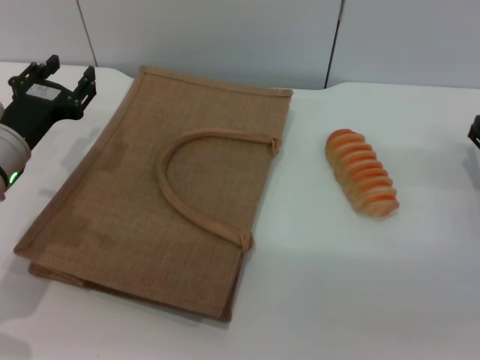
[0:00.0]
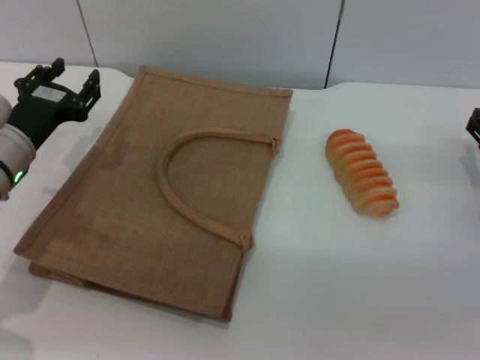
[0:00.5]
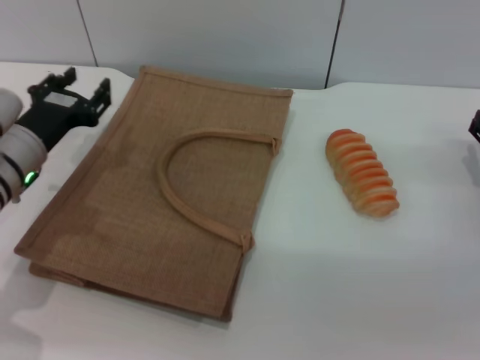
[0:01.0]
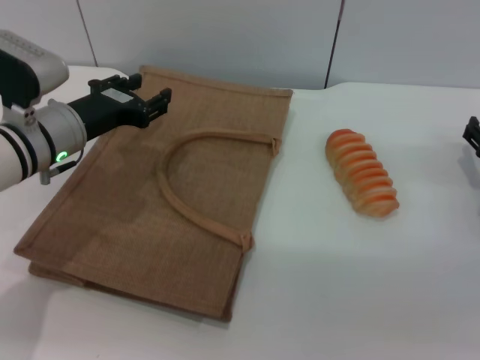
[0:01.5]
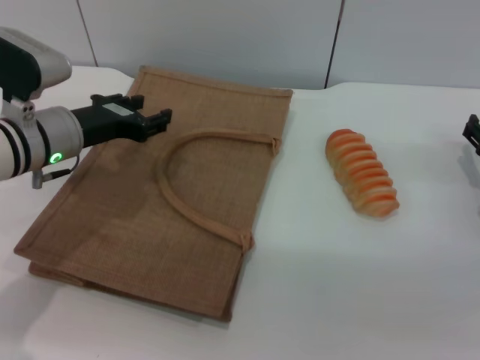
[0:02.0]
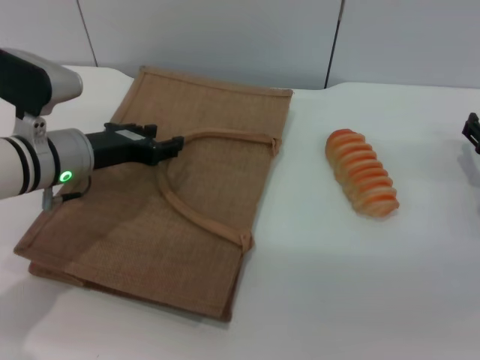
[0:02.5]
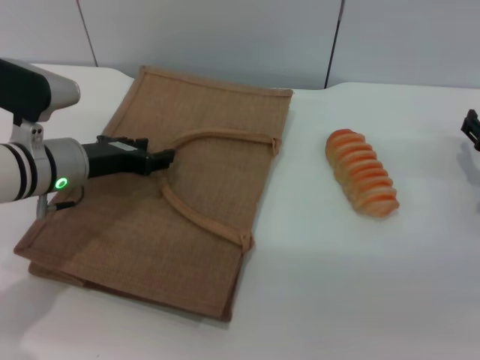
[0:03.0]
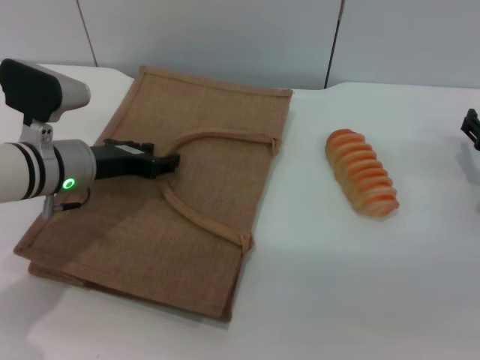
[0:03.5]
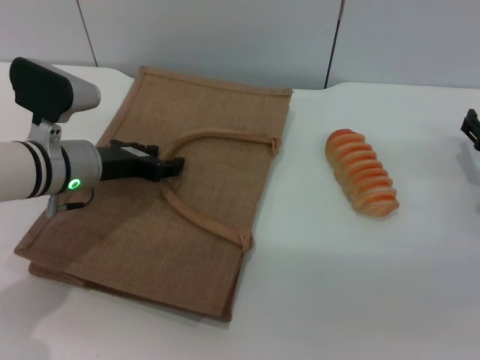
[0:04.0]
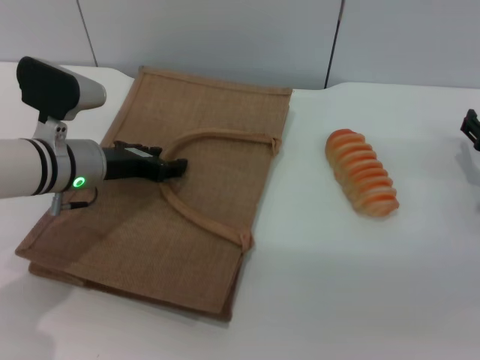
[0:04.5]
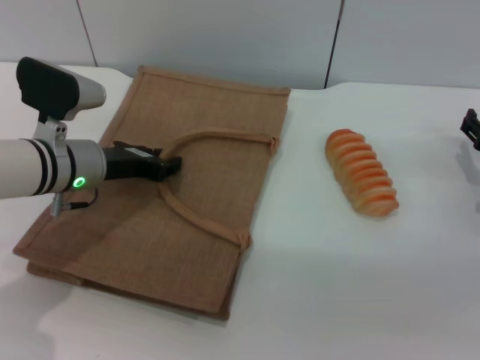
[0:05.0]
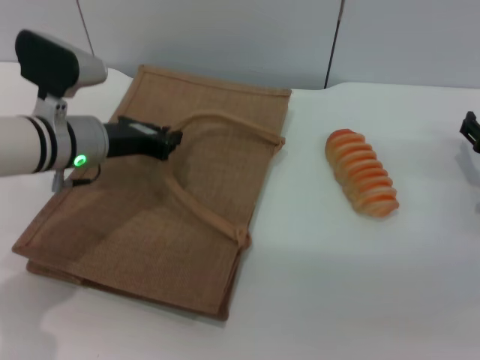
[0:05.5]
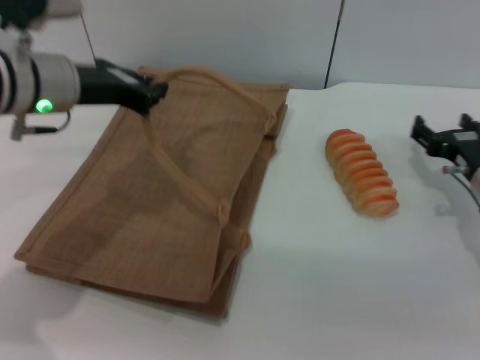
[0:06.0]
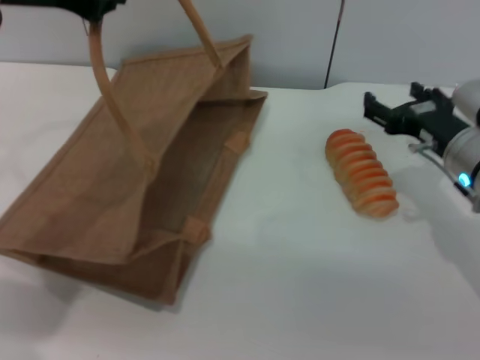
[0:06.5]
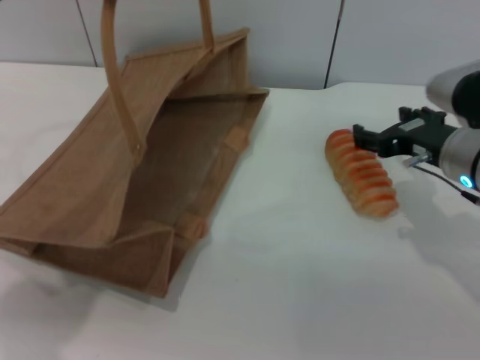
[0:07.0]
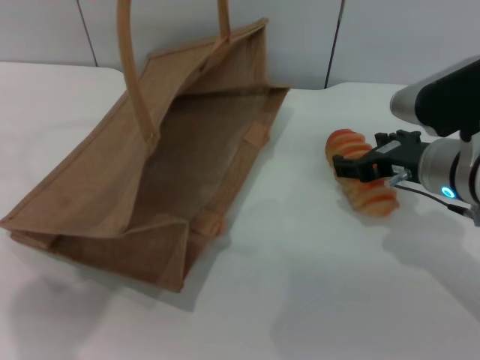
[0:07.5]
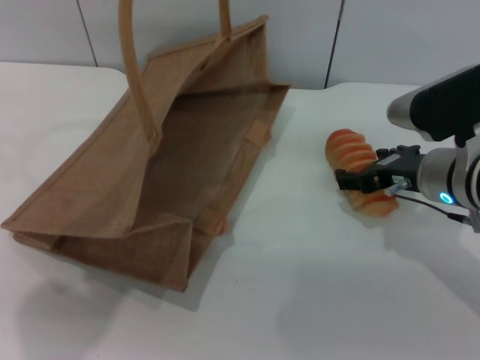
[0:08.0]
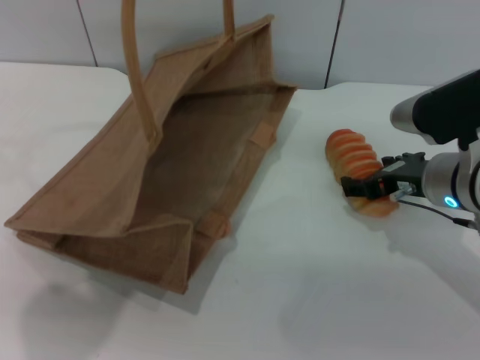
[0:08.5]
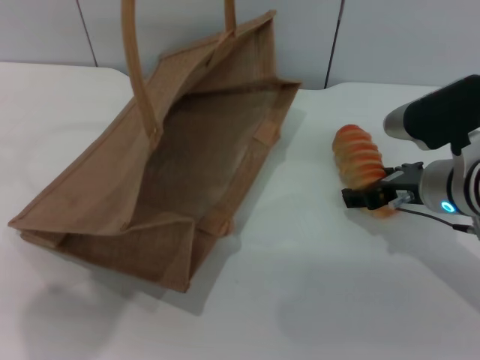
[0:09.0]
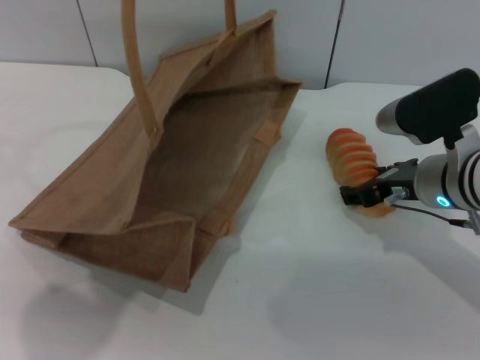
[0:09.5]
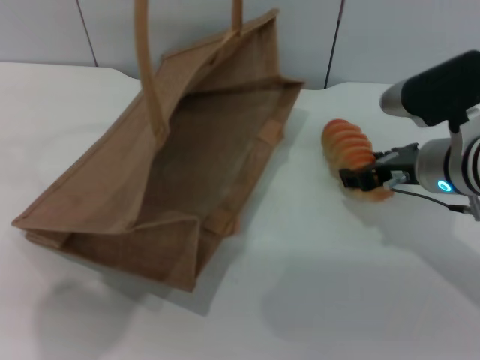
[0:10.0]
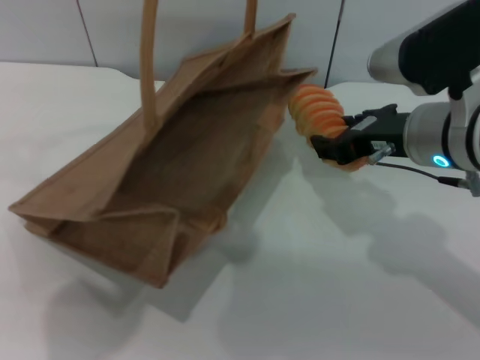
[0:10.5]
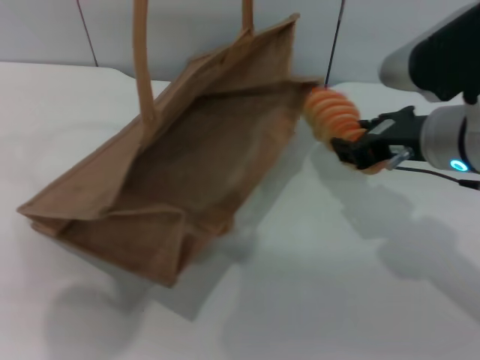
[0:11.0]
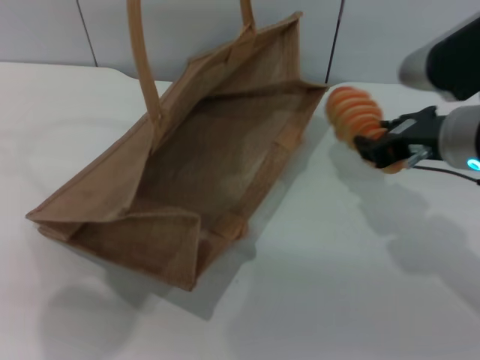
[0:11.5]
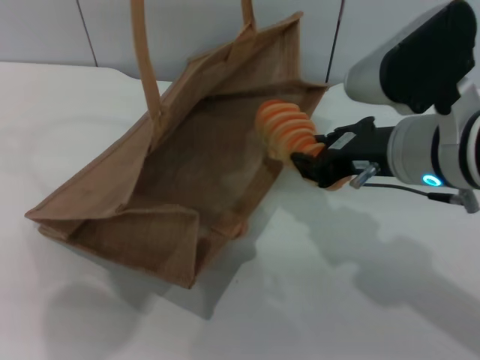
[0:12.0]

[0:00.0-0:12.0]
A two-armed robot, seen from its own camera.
Task of the whole recording: pick up the bread from the table and place it in the brown handbag.
Step, 0:00.0 to 0:05.5: Lift the woven bag with the left gripper to open it.
Step, 0:06.0 to 0:10.0: Pick up the bread with the right gripper.
0:00.0 to 0:02.0: The left gripper moves roughly 5 cm.
0:02.0 to 0:04.0: The grippers make only small movements.
0:04.0 to 0:06.0: The left gripper moves upward, some 10 cm, and closes up.
0:06.0 to 0:08.0: The left gripper shifts about 15 cm upward; the right gripper shifts approximately 10 cm to the left and upward.
0:08.0 to 0:10.0: There are only small adjustments of the grippers.
0:10.0 to 0:12.0: The right gripper goes approximately 10 cm upward and backward, and closes.

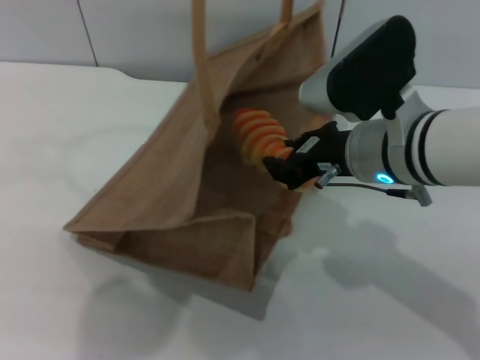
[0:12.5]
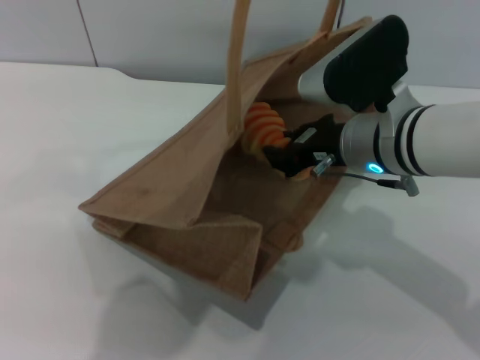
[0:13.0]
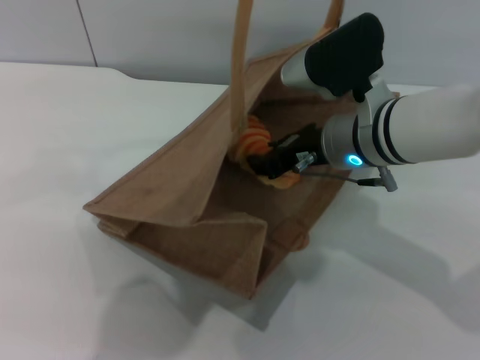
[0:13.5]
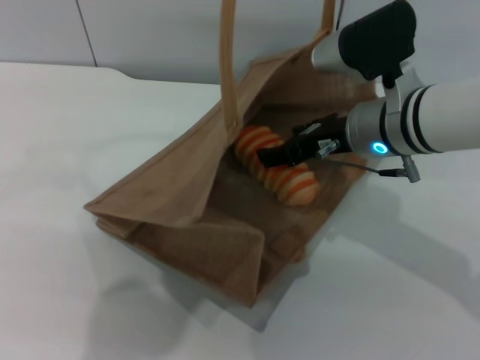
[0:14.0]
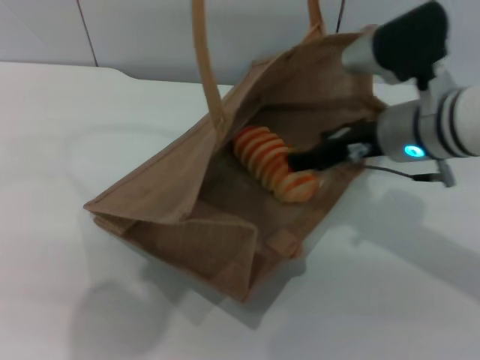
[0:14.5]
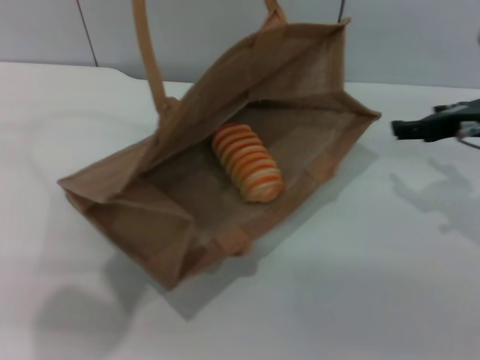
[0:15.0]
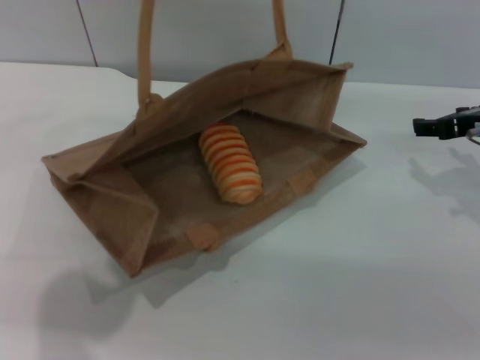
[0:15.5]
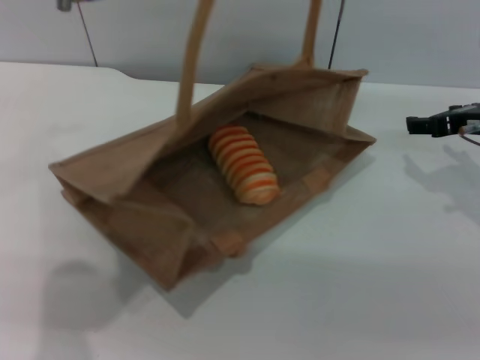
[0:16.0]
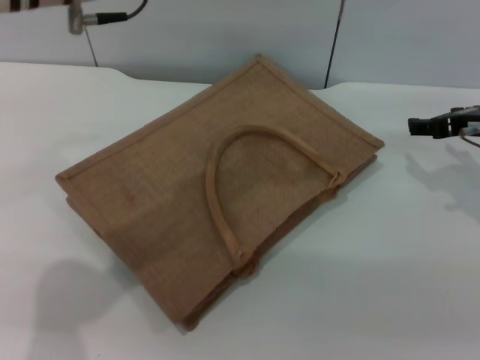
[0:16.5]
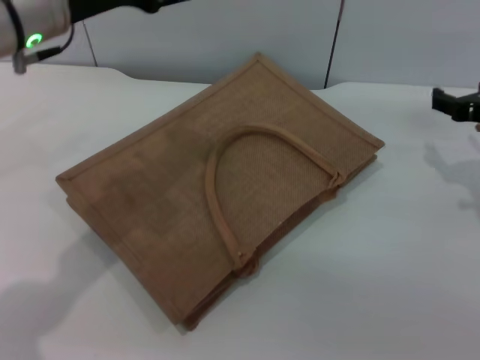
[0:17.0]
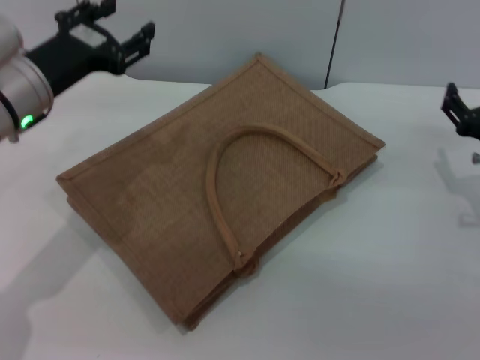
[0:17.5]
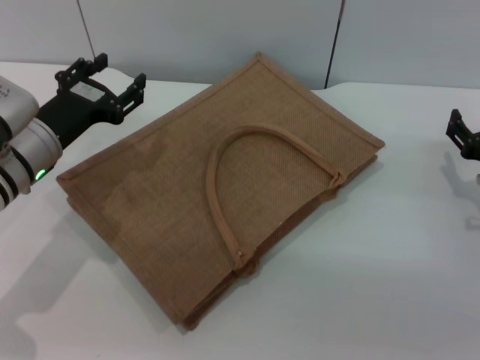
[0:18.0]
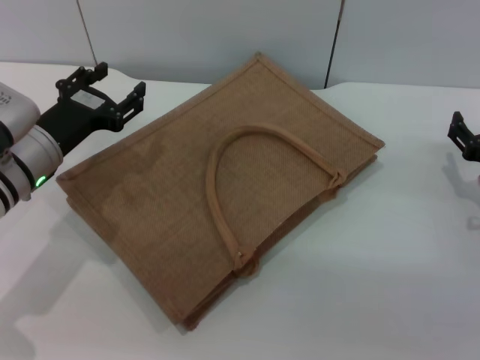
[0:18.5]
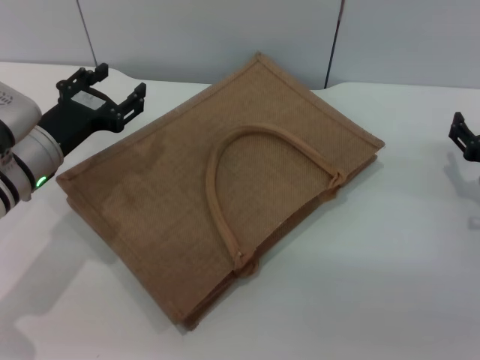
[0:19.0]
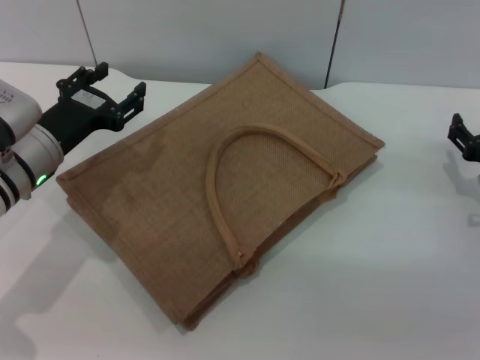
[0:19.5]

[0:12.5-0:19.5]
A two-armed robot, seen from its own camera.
Task of the whole recording: pick up the bread from the table and place it in the brown handbag.
Step, 0:15.0 to 0:16.0: Lower the woven bag with the left gripper to close it.
0:12.5 to 0:14.5: The right gripper shifts by approximately 5 cm, and opens up.
0:14.5 to 0:16.0: The right gripper travels to the right by approximately 10 cm, while the left gripper opens.
0:16.0 to 0:17.5: The right gripper moves downward and backward, roughly 10 cm. The left gripper goes approximately 20 cm downward and to the left.
0:17.5 to 0:19.5: The left gripper travels downward by approximately 5 cm.

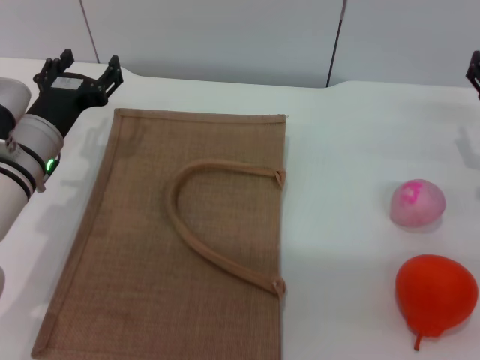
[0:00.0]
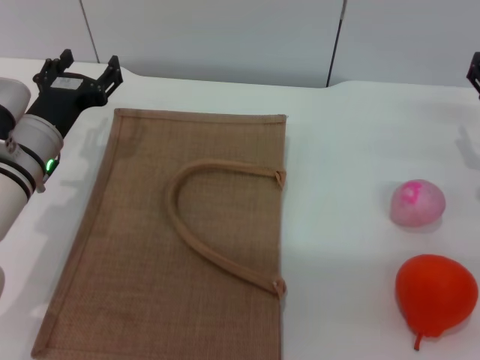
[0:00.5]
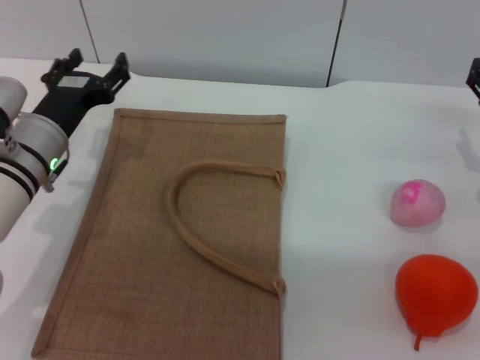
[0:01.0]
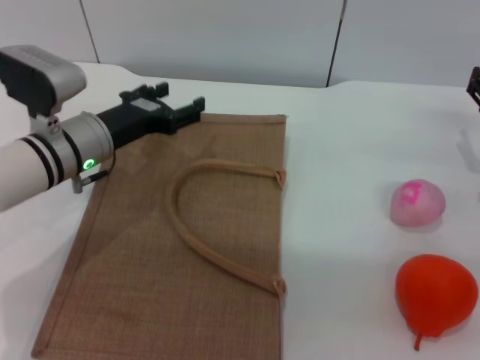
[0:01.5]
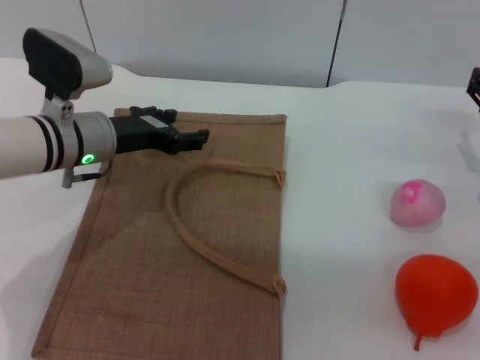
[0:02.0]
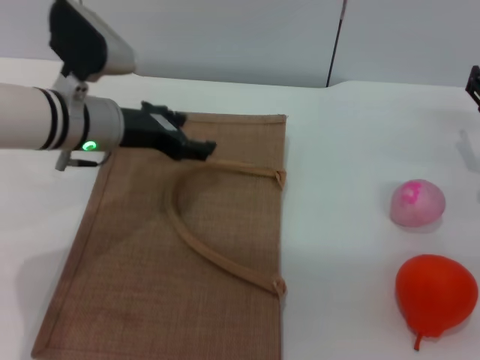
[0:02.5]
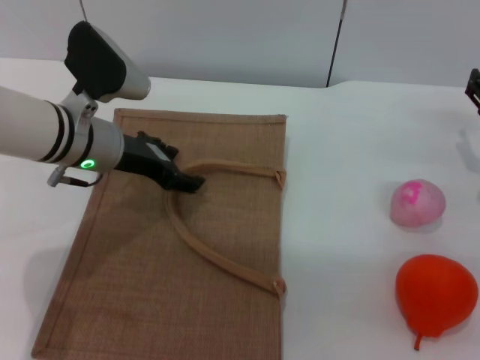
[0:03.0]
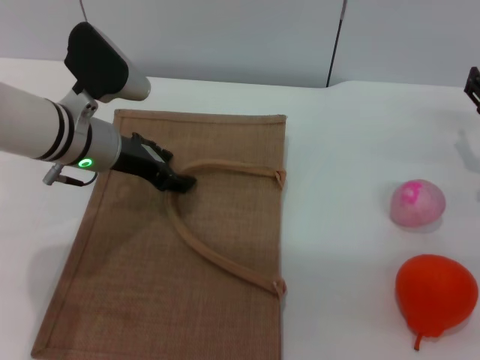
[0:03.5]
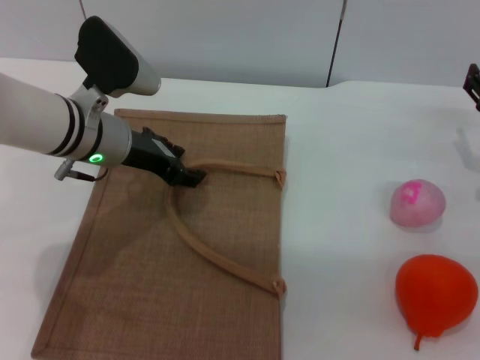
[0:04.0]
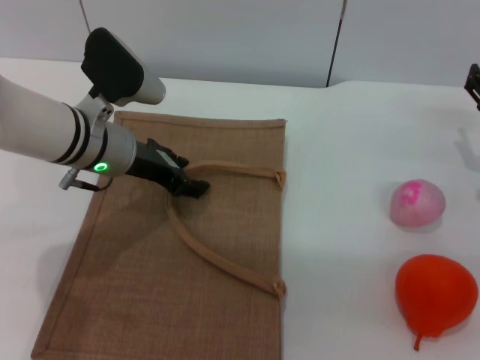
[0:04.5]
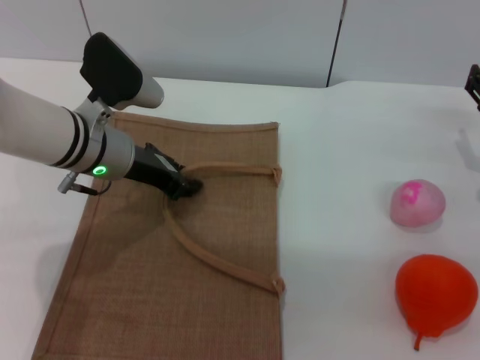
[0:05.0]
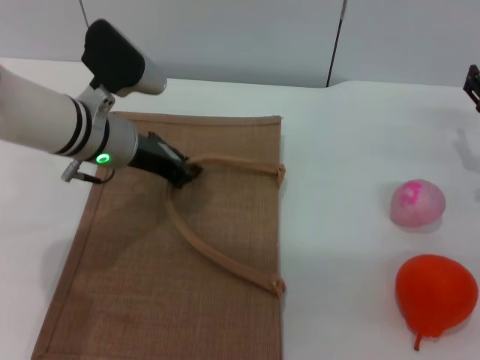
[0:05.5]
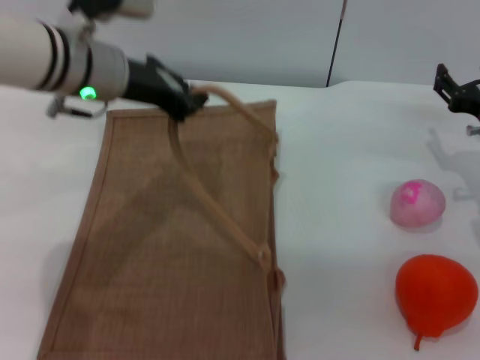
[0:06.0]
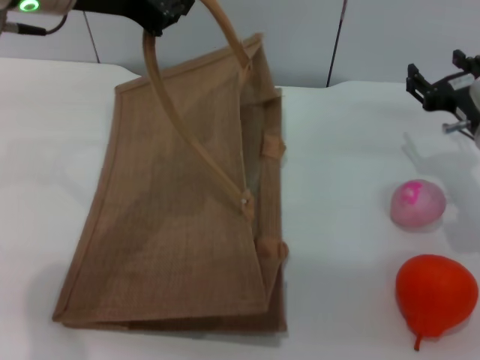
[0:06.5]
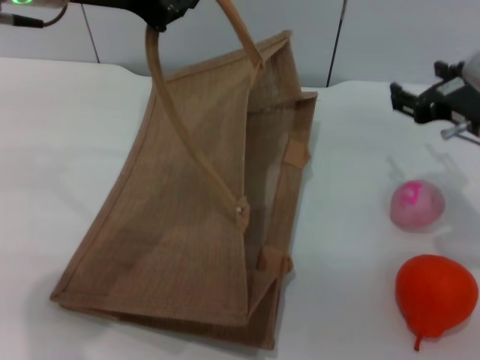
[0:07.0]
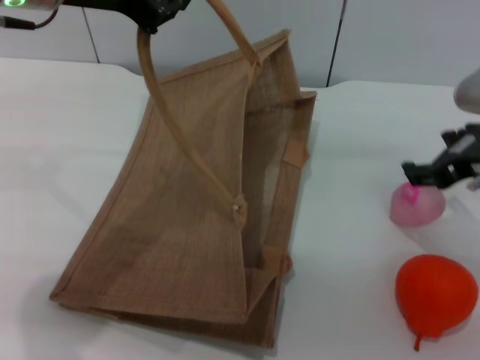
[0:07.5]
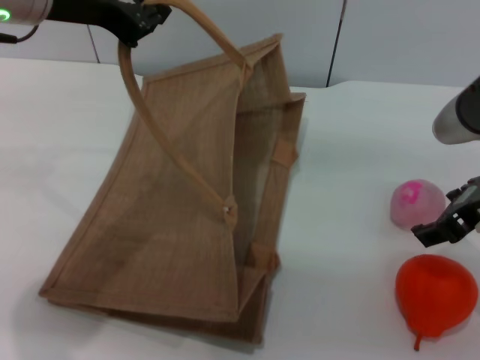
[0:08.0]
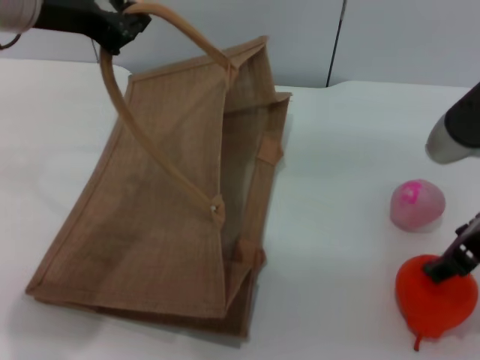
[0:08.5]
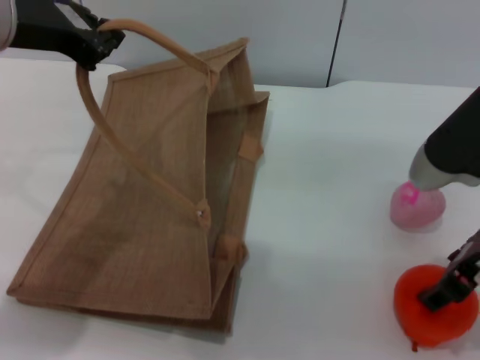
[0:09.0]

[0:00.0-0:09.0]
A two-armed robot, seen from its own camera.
Task of the whole recording: pick up the orange and peach from the table and place it in the brown handbag.
Step, 0:00.0 to 0:05.5: Lift the woven bag with the left gripper to open it.
0:00.0 to 0:02.0: The left gripper moves approximately 5 cm.
0:04.5 to 0:07.0: The right gripper is displaced upward and to the left by about 10 cm. Meanwhile the left gripper shifts approximately 20 cm upward, and closes.
0:07.0 to 0:09.0: The right gripper goes about 5 cm backward, while the left gripper moves roughly 5 cm.
